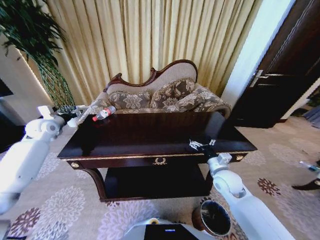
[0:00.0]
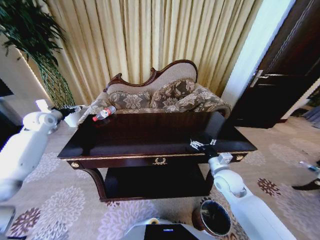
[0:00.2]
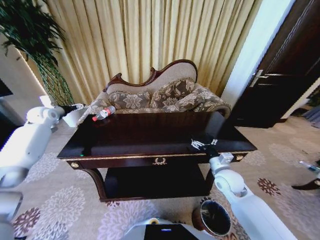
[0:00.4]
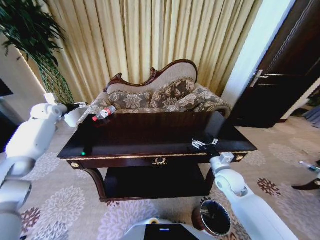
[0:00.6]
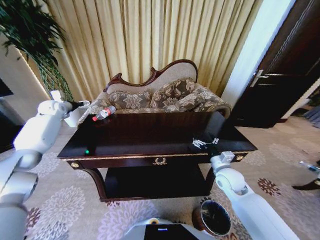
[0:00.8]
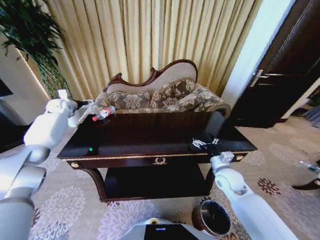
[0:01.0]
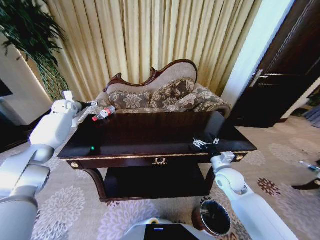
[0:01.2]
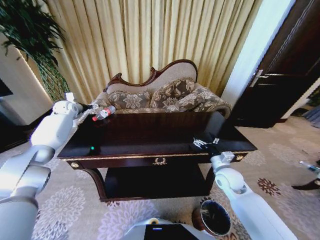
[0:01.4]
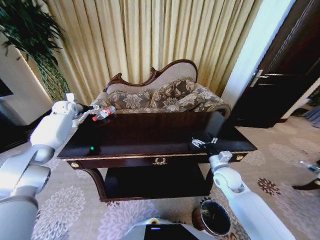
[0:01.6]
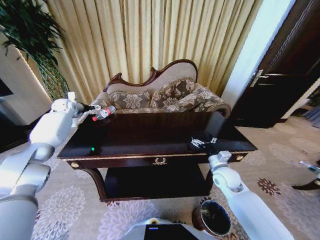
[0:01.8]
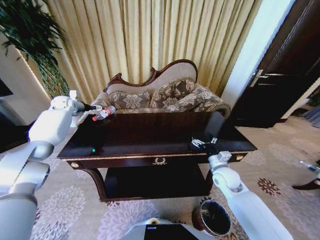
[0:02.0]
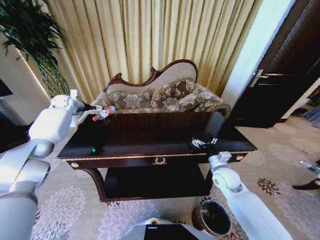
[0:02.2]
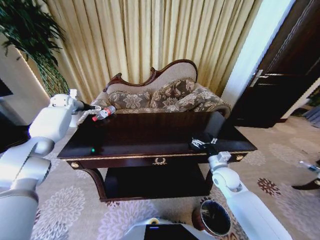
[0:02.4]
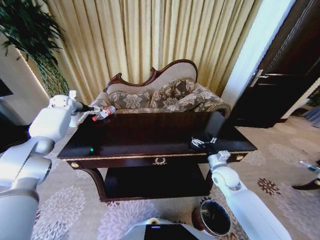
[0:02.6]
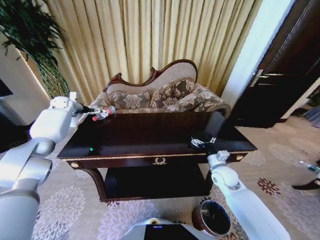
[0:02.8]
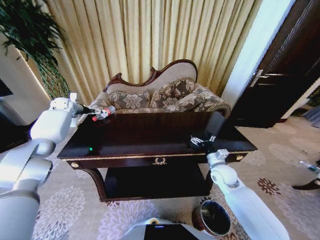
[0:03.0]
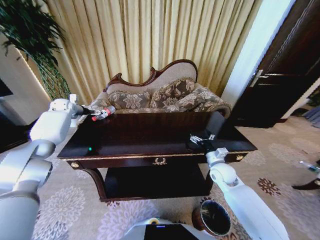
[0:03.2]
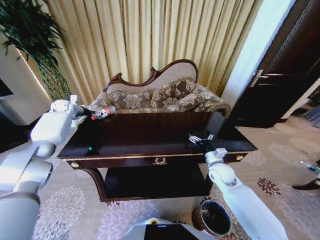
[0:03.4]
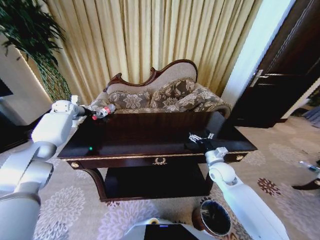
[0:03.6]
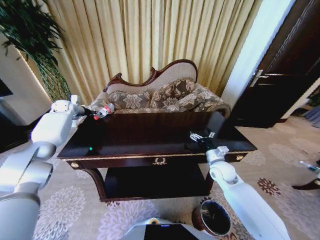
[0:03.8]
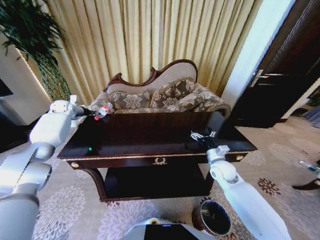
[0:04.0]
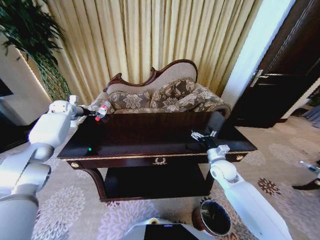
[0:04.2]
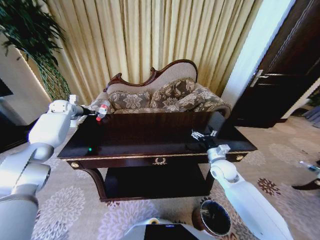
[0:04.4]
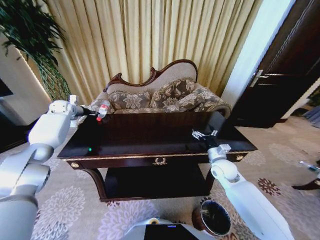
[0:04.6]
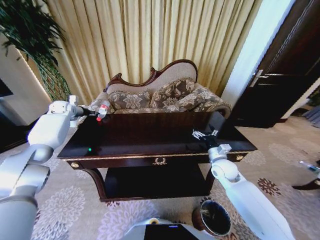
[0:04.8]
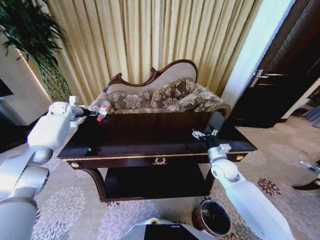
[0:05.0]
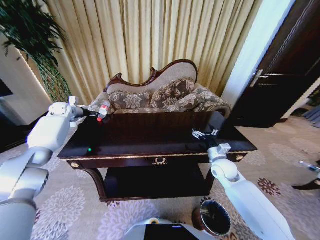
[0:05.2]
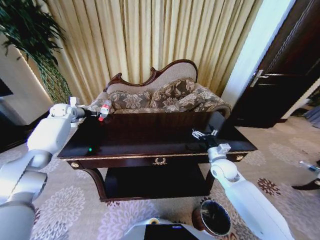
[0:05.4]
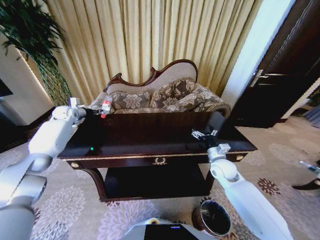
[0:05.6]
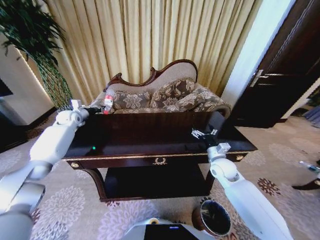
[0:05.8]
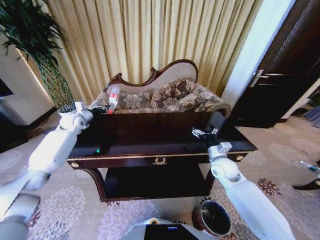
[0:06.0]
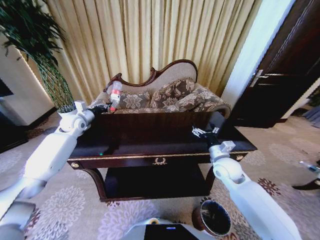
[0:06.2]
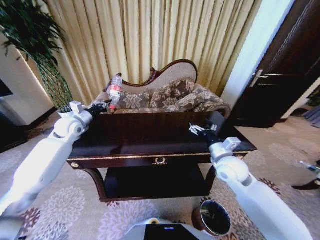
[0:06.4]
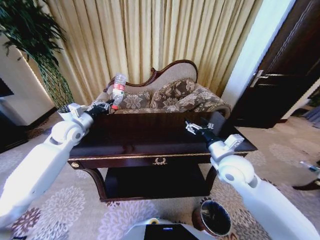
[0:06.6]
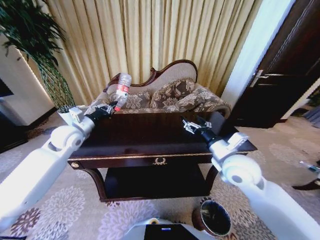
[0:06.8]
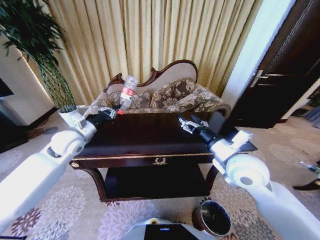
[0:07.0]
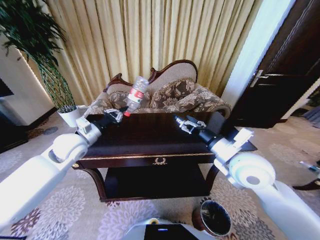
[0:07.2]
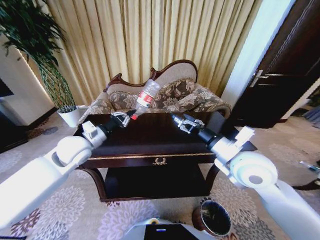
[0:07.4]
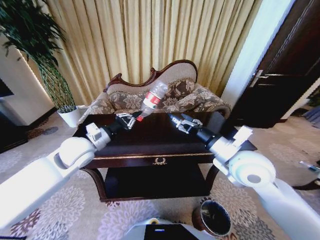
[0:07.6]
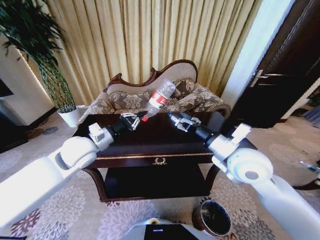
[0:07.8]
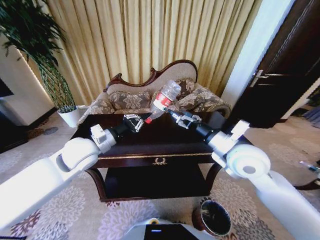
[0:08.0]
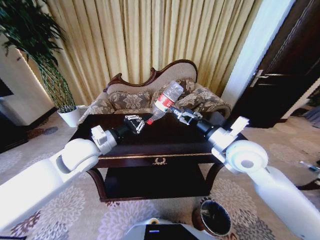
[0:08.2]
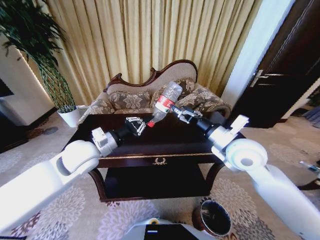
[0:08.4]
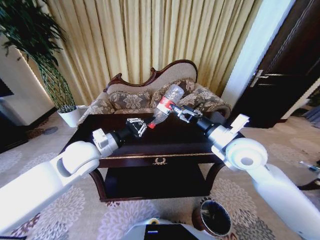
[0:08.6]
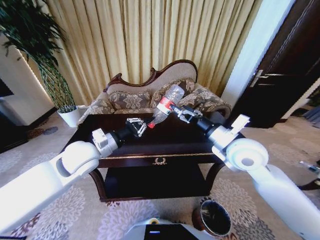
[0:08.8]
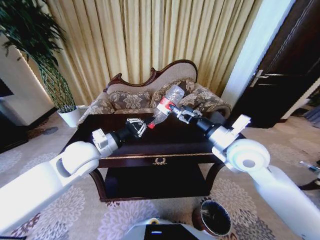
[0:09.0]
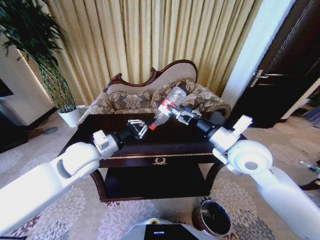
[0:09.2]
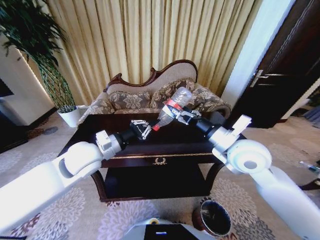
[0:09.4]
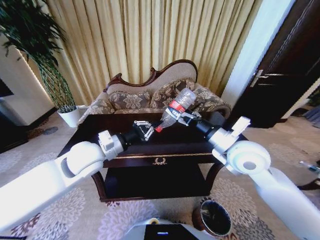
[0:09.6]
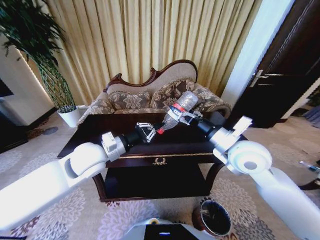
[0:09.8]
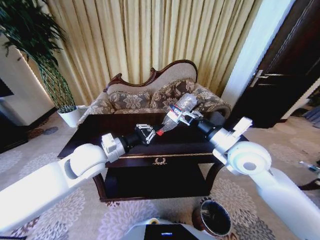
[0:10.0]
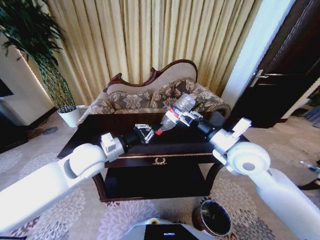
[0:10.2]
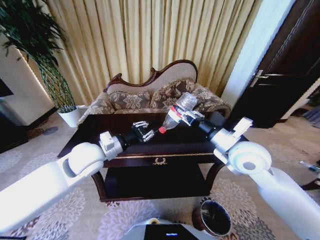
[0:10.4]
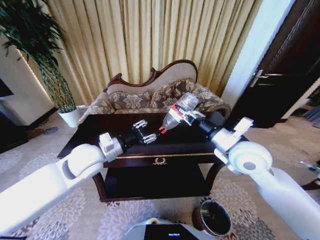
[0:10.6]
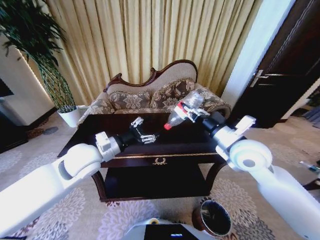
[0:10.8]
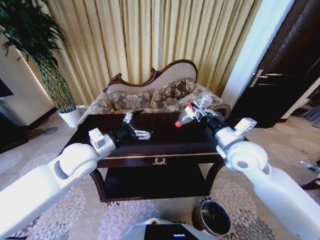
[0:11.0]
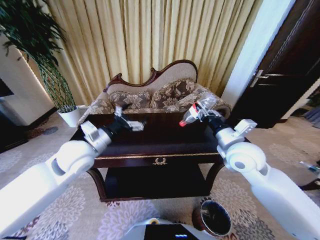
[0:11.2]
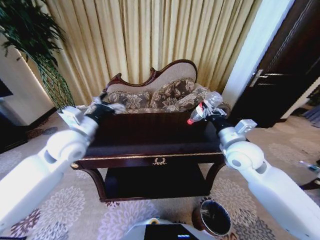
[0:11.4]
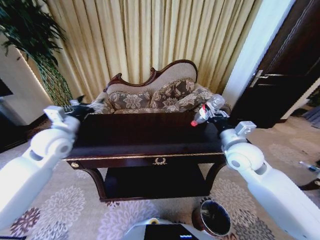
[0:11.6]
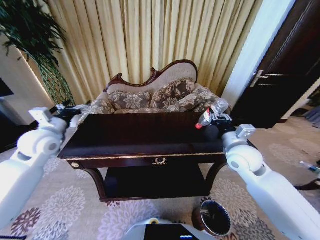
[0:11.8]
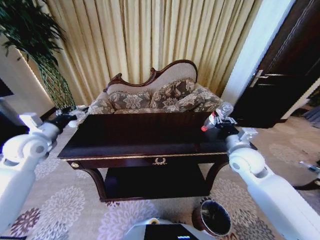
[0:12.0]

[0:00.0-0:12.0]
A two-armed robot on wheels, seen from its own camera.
Task of the whole recording: Move to the front of the table and place the trash on the table into the trash bin.
0:00.0 to 0:01.6: The left gripper shifts about 15 cm forward, and opens its fingers.
0:01.6 to 0:03.0: There are only small adjustments of the grippers.
0:03.0 to 0:04.4: The left gripper closes.
0:04.4 to 0:06.0: The left gripper is displaced to the right and backward by roughly 10 cm.
0:06.0 to 0:07.6: The right gripper moves upward and backward, roughly 20 cm. The left gripper moves backward and to the right, roughly 25 cm.
0:07.6 to 0:09.0: The grippers stay close to where they were, moving slightly.
0:09.0 to 0:10.4: The right gripper closes up.
0:10.4 to 0:12.0: The right gripper travels downward and to the right by about 10 cm; the left gripper is displaced to the left by roughly 20 cm, and opens its fingers.

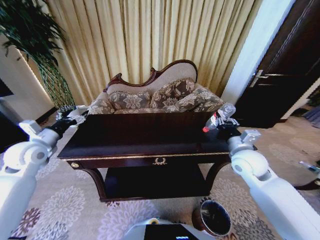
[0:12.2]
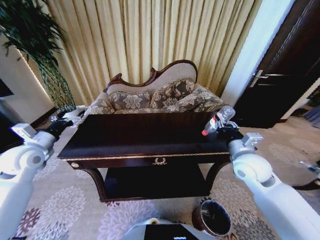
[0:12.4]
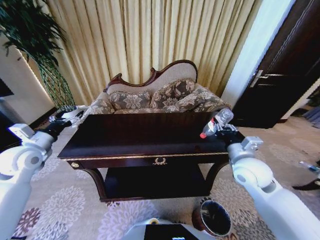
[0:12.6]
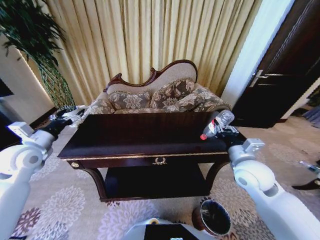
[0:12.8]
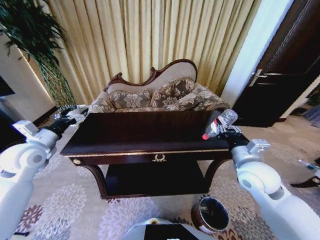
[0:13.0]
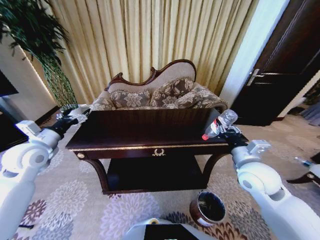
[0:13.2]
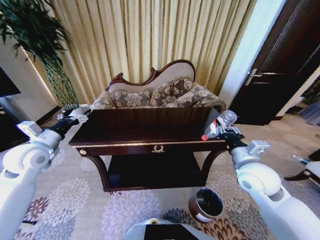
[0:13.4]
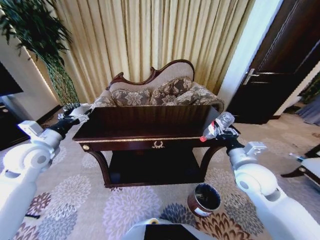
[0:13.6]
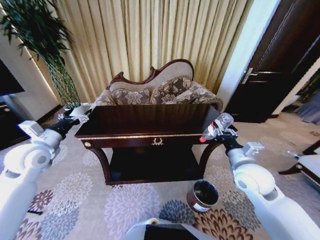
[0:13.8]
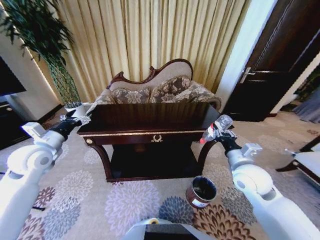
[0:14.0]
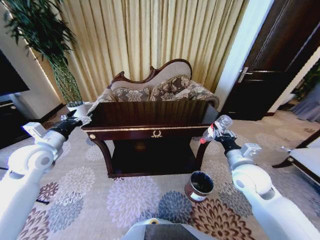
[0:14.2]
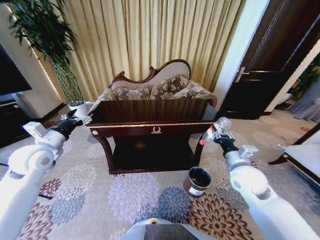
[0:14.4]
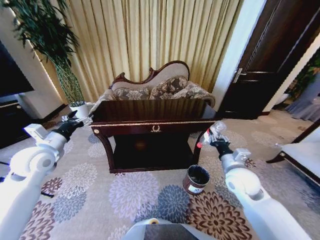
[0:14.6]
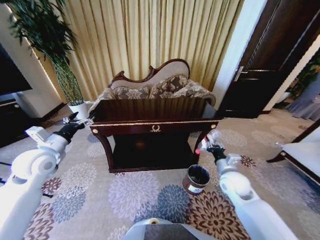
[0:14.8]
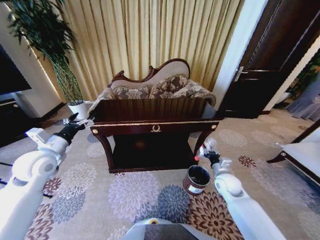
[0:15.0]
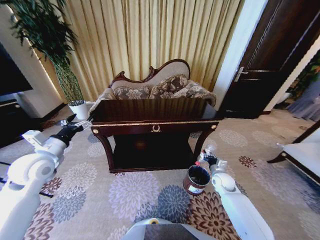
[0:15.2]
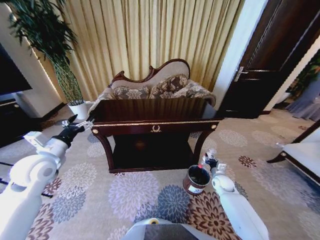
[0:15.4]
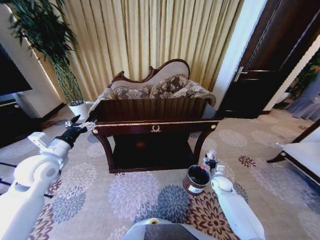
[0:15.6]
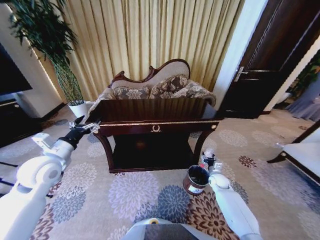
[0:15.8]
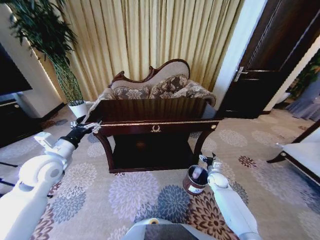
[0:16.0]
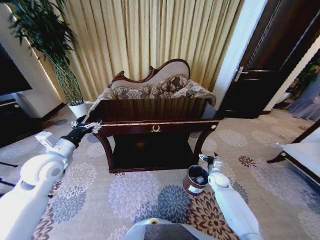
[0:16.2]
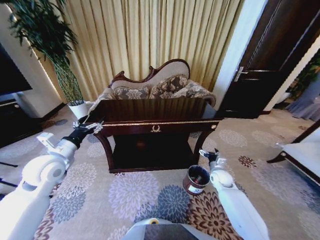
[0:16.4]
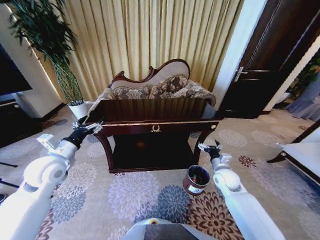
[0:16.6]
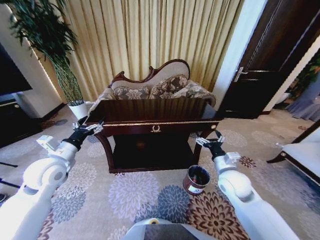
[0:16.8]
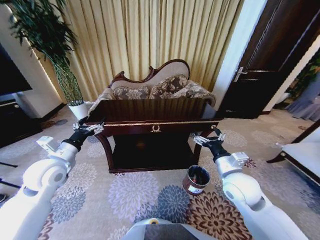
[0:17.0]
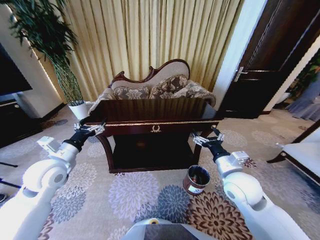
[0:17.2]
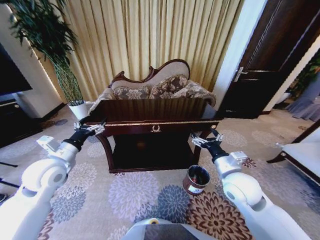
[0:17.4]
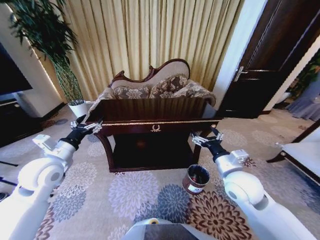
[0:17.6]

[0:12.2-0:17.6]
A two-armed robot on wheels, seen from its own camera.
Task of the whole recording: Move to the front of the table and place the trash on the table into the trash bin.
0:12.2 to 0:13.6: The right gripper moves backward, some 5 cm.
0:13.6 to 0:15.0: The right gripper is displaced downward by about 20 cm.
0:15.0 to 0:16.2: The right gripper shifts approximately 10 cm downward and forward, and opens up.
0:16.2 to 0:17.6: The right gripper heads upward and backward, covering approximately 30 cm.
